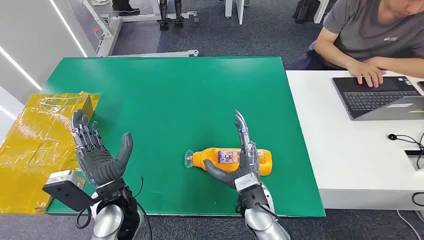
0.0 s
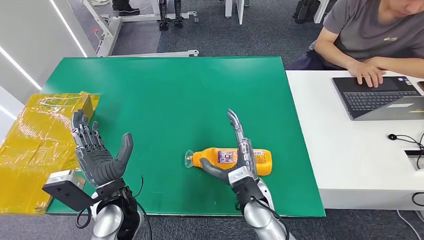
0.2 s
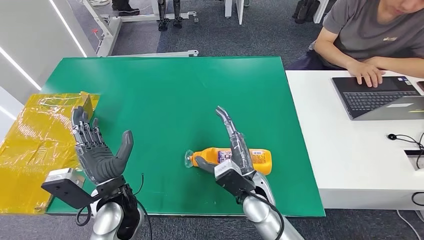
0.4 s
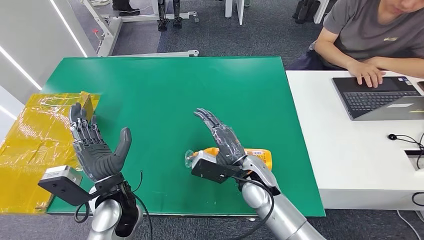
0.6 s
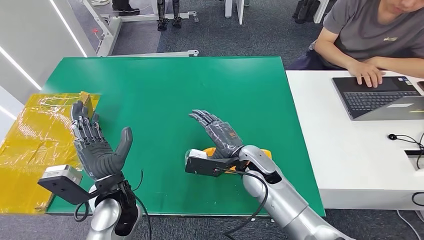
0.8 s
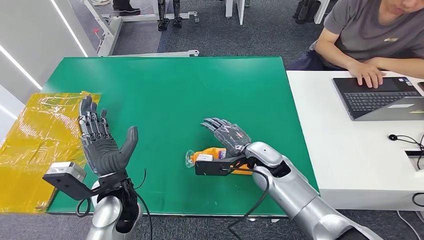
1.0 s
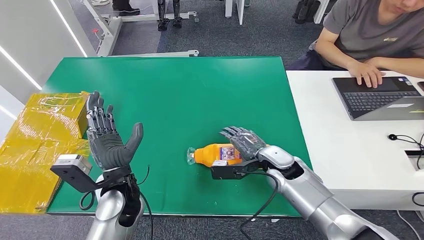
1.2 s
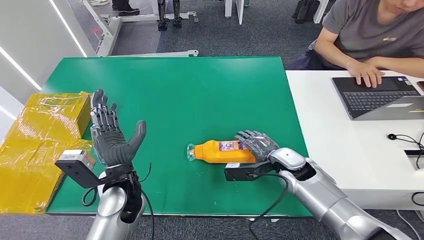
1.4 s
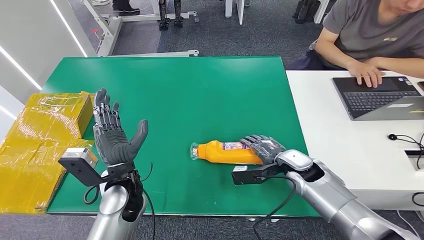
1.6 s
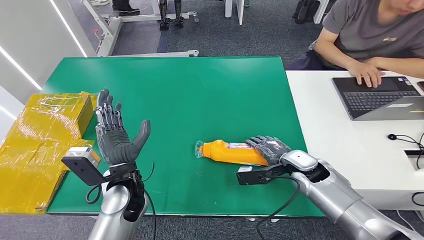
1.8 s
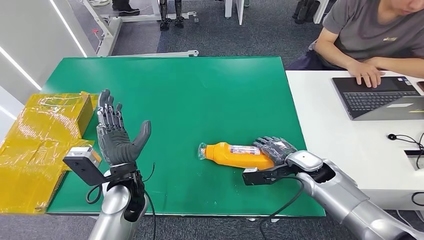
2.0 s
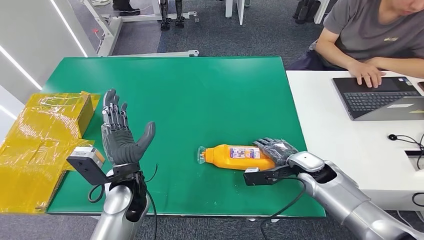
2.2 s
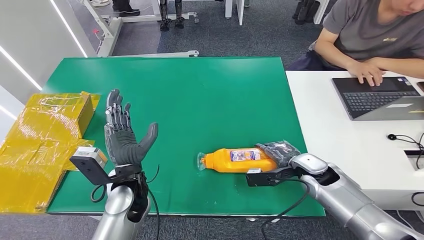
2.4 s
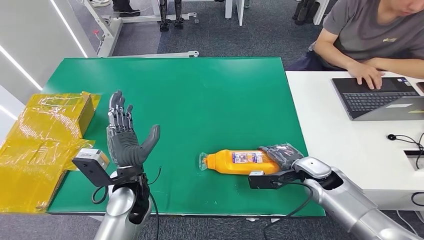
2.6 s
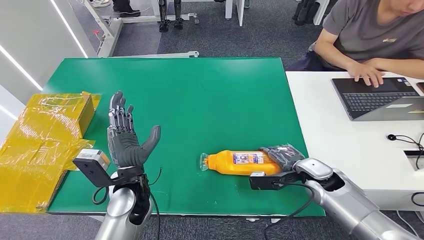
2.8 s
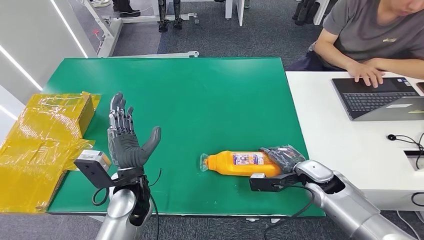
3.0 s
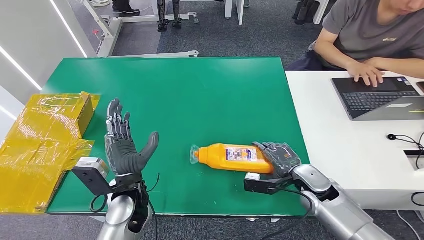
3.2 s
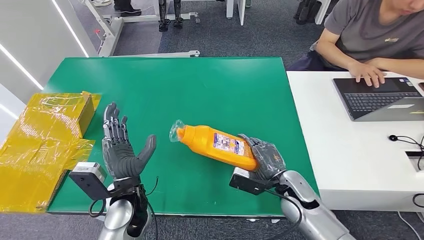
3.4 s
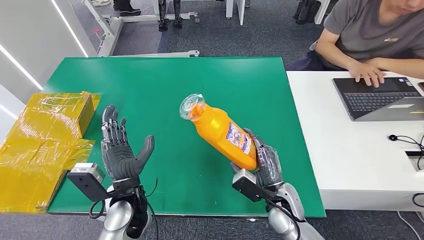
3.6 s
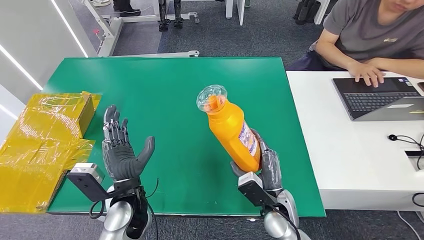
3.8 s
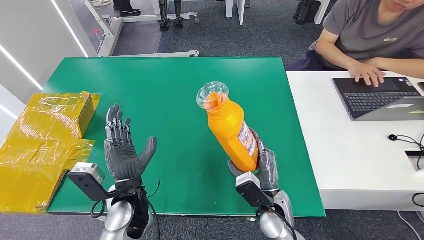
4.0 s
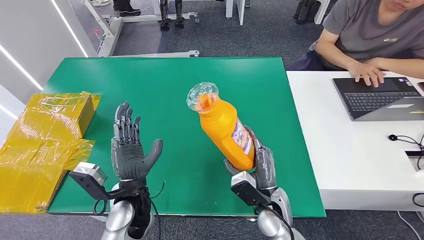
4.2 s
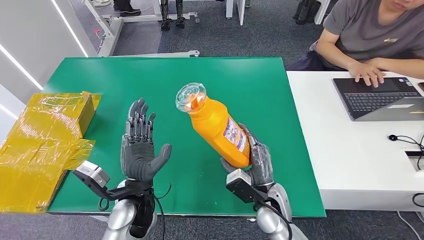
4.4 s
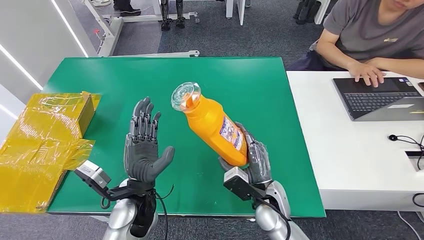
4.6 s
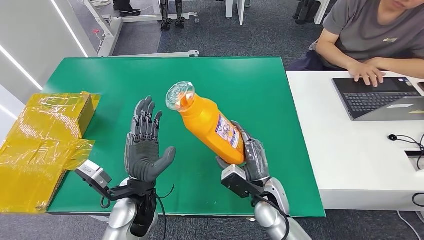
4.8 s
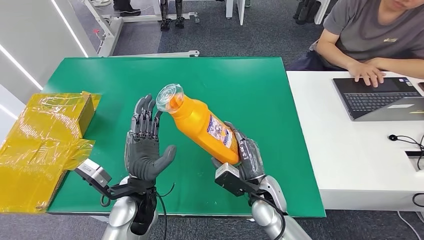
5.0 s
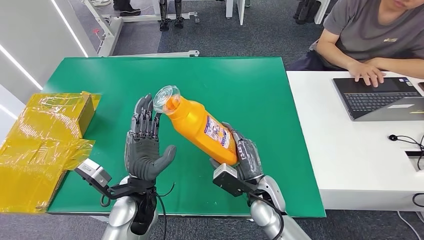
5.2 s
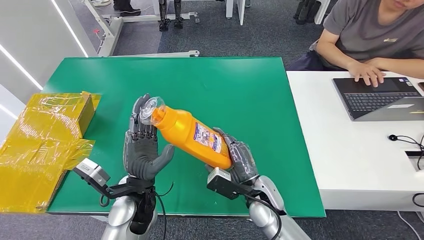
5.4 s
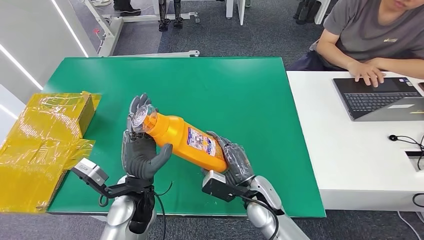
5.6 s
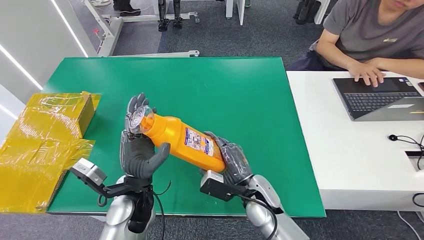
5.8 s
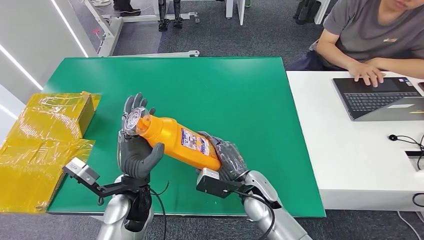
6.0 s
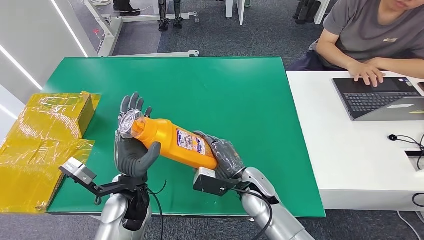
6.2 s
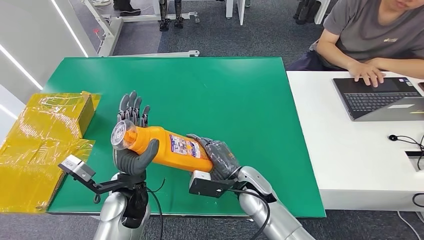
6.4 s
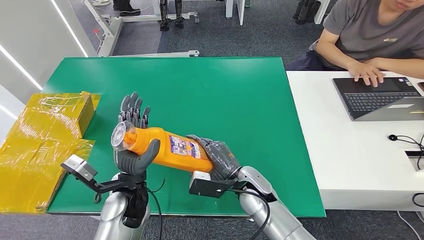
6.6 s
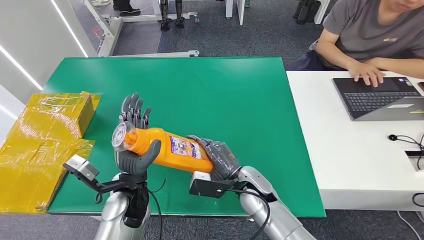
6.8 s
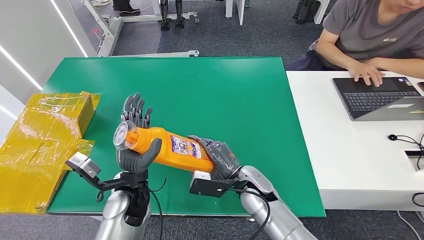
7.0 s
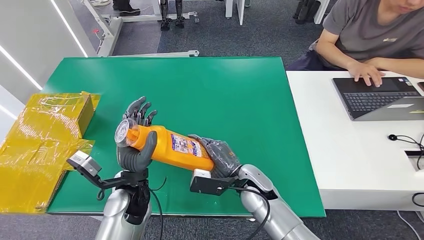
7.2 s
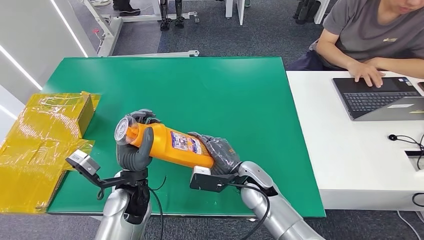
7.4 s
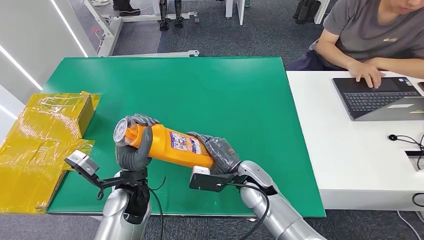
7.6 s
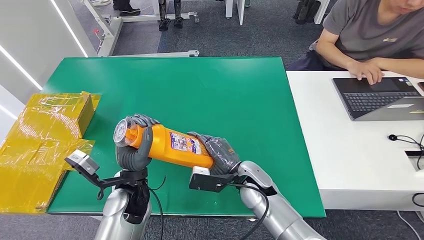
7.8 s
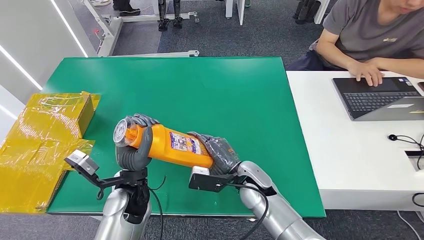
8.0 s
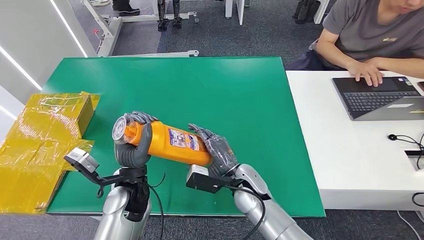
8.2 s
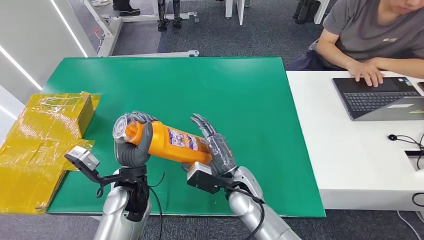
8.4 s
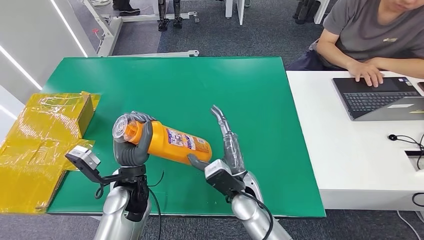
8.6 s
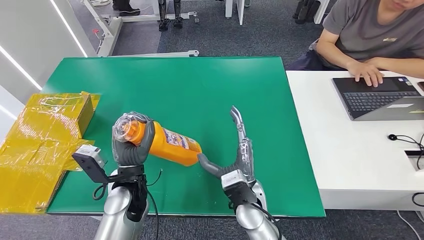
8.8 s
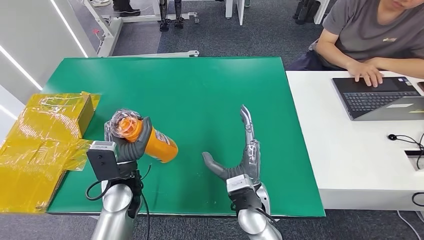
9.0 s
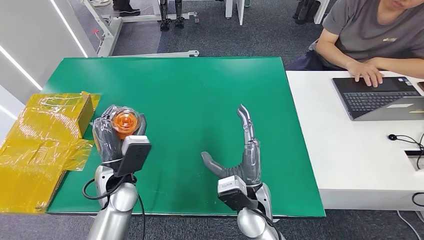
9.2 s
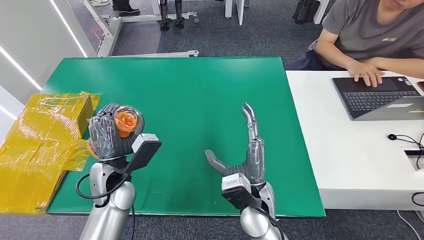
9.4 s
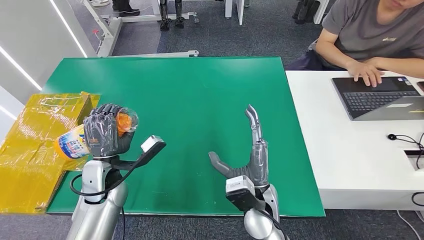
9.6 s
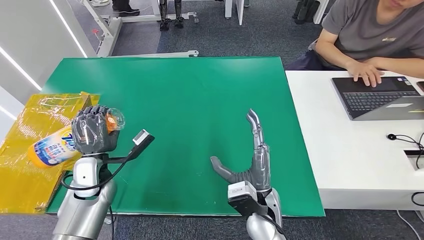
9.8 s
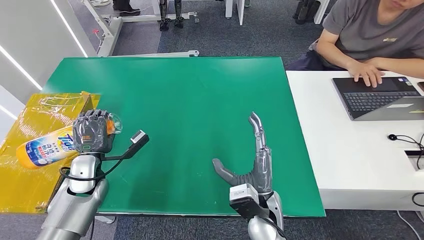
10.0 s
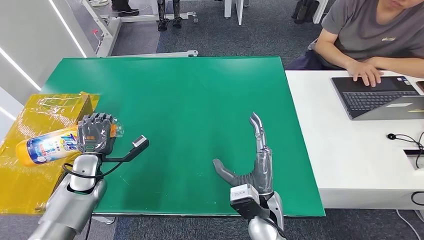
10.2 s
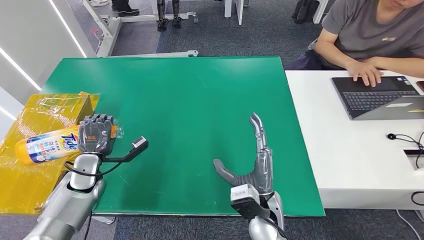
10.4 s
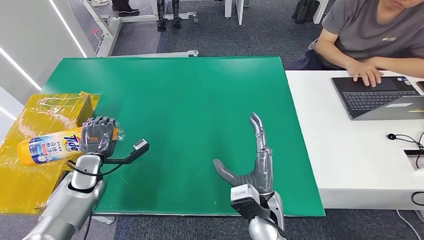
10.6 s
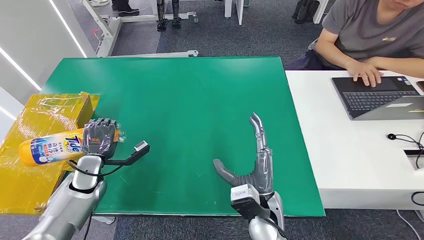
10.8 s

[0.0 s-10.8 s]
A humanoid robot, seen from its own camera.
Step, 0.0 to 3.6 s: Pick up the bottle from the table.
1.6 to 3.0 s: The right hand is displaced to the right by approximately 5 cm.
3.0 to 4.6 s: The right hand is displaced to the left by about 15 cm.
4.6 to 6.2 s: The right hand shifts by roughly 5 cm.
6.2 to 7.8 s: The hands move only a little.
7.8 to 9.2 s: The right hand heads backward, covering some 5 cm.
9.2 to 10.8 s: The left hand heads to the left and downward, covering about 15 cm.

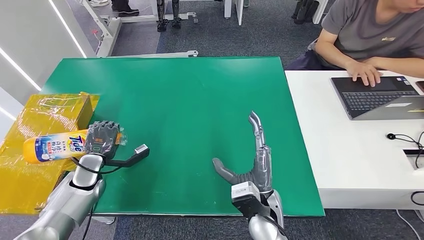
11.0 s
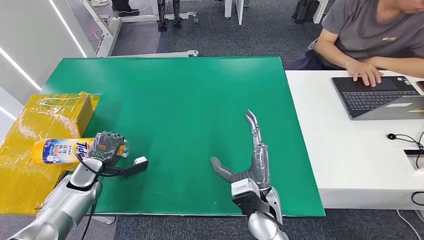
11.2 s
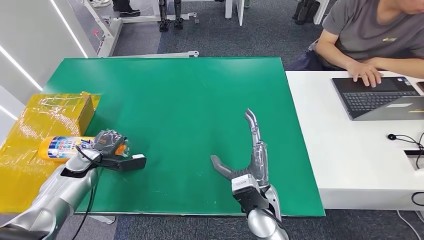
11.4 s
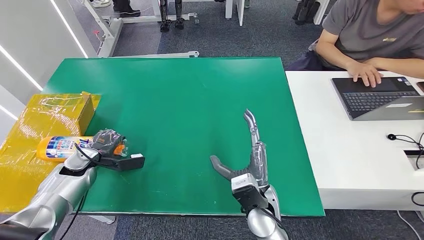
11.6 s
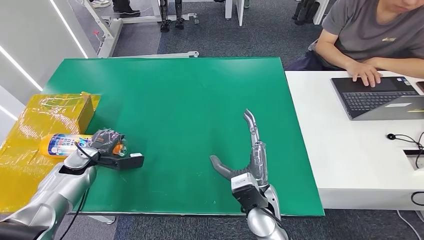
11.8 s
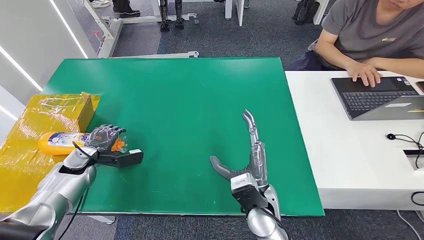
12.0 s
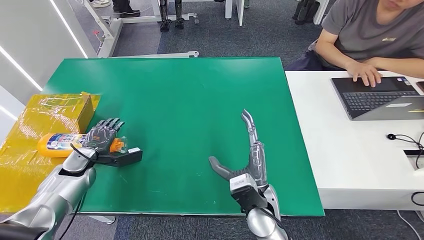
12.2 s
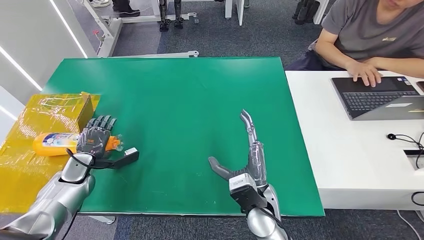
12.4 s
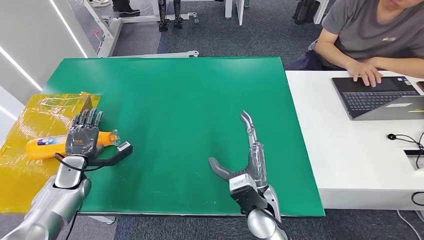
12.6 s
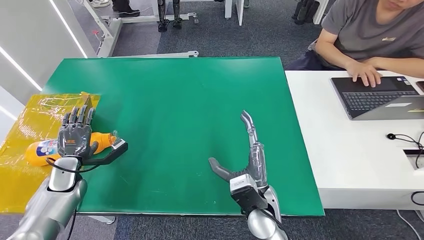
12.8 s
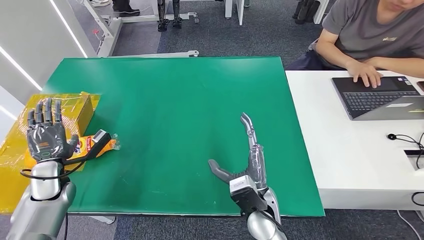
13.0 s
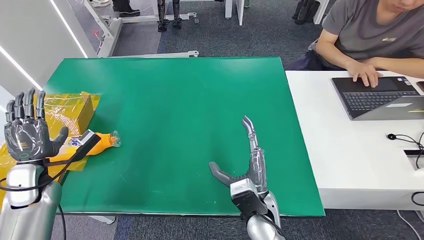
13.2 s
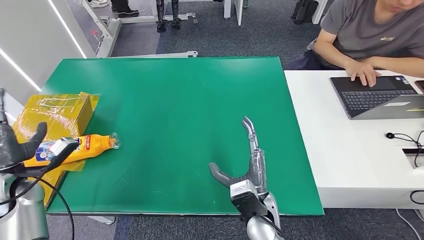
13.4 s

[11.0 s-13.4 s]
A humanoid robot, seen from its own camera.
Step, 11.0 to 13.4 s: Turn the bottle to the front side.
11.0 to 12.2 s: The left hand changes place by some 5 cm.
12.2 to 13.4 s: The left hand moves upward, backward and to the left, approximately 15 cm.

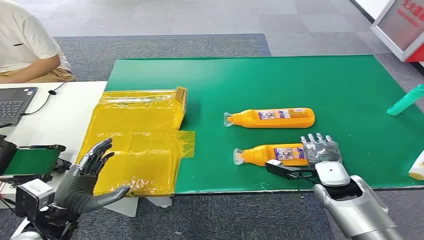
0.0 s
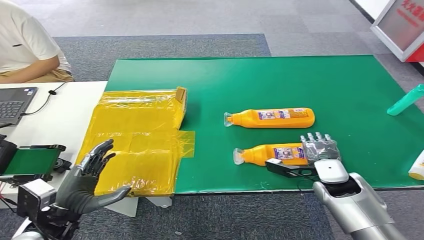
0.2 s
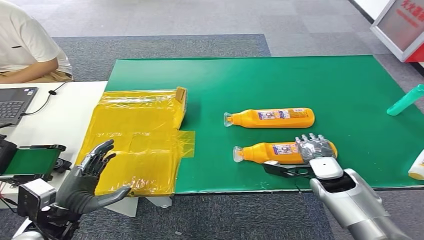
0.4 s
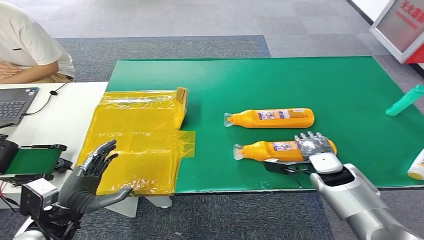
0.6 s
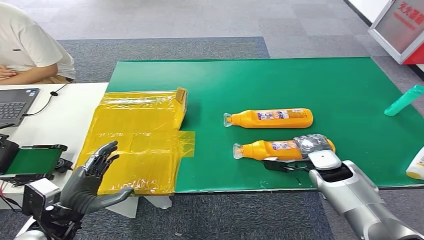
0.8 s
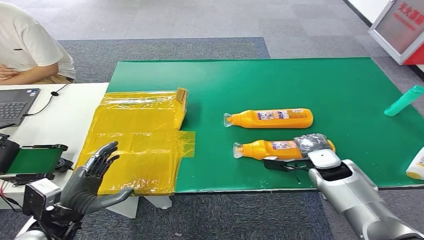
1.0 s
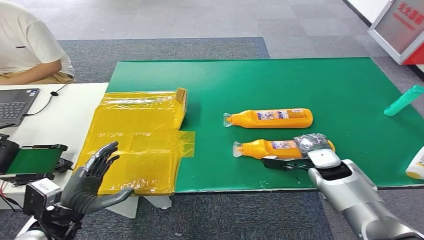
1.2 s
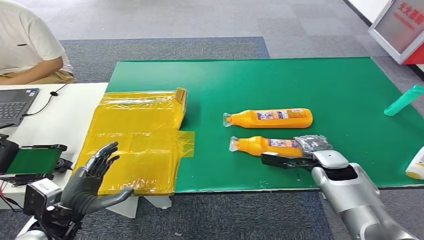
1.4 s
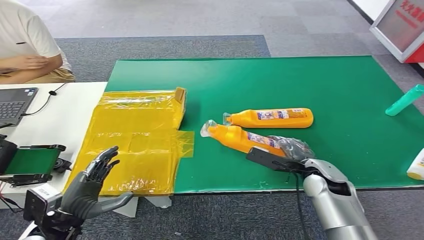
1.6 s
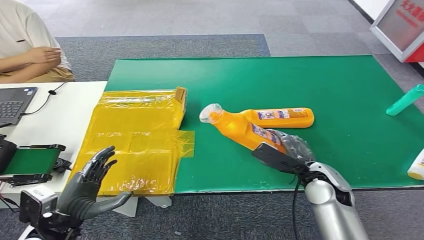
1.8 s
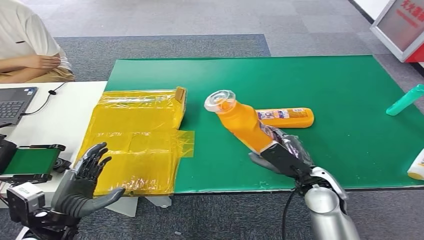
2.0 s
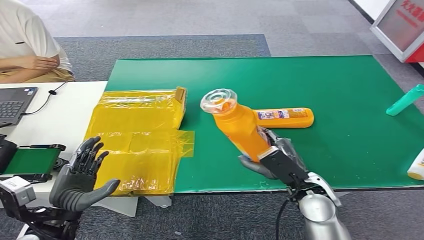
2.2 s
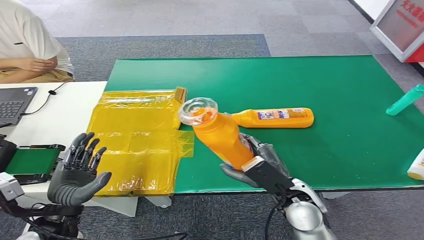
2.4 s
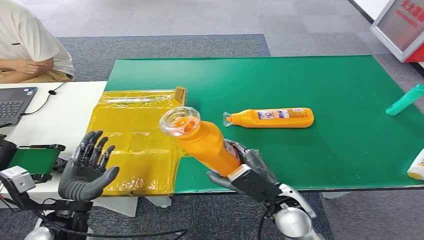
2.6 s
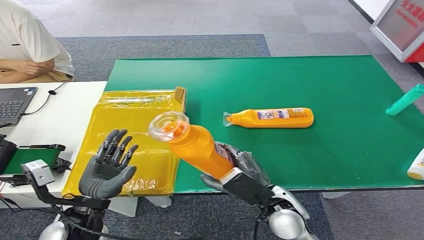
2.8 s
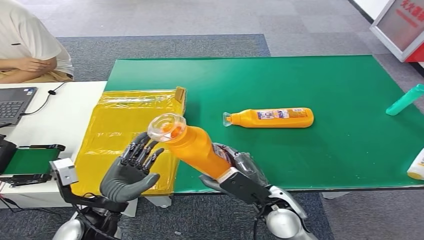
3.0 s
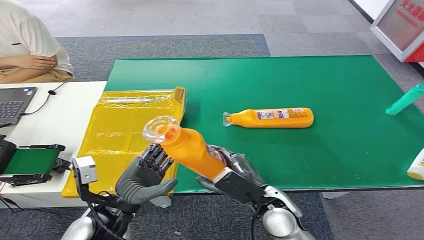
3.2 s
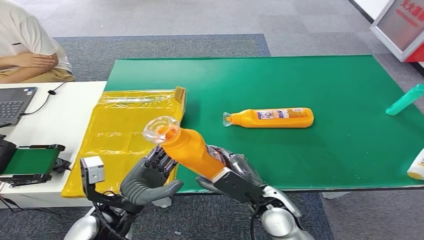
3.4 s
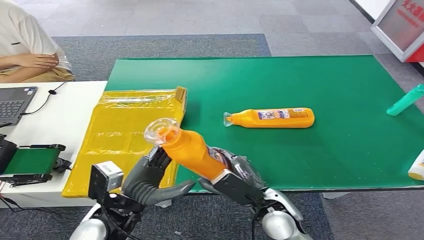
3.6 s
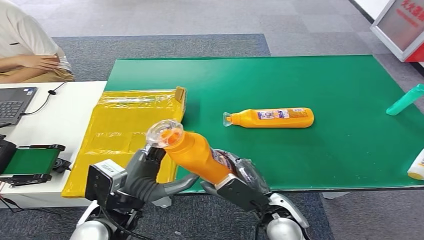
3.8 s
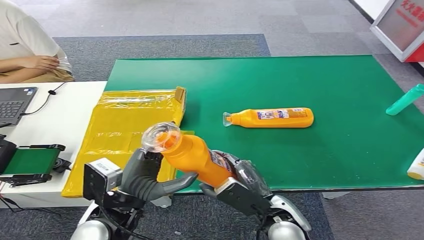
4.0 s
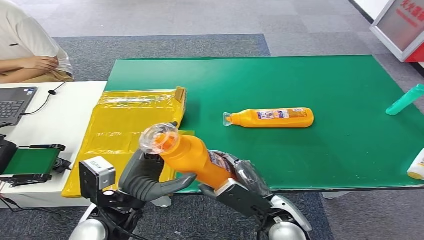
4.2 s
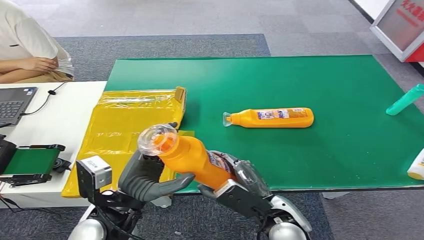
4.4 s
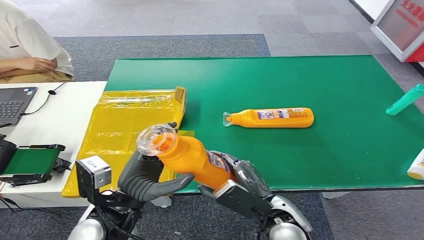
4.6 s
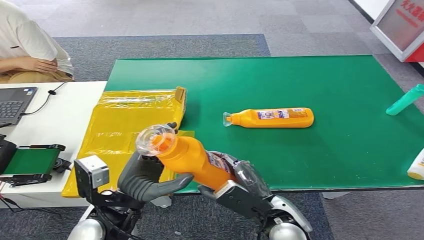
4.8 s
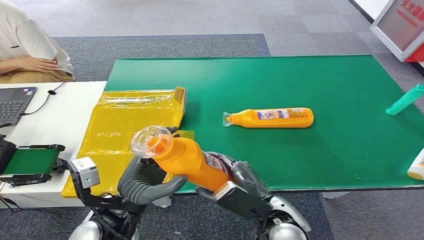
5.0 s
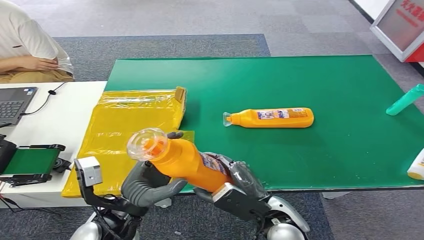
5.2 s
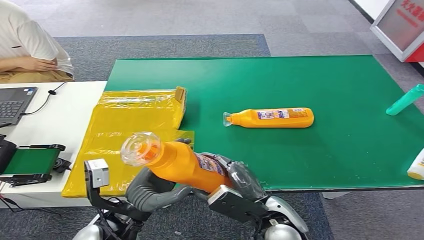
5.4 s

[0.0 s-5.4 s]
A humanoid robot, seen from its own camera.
Step, 0.0 to 2.0 s: Pick up the bottle from the table.
2.8 to 4.0 s: The left hand travels to the right by roughly 5 cm.
